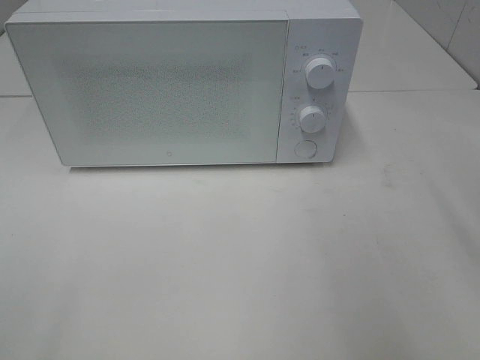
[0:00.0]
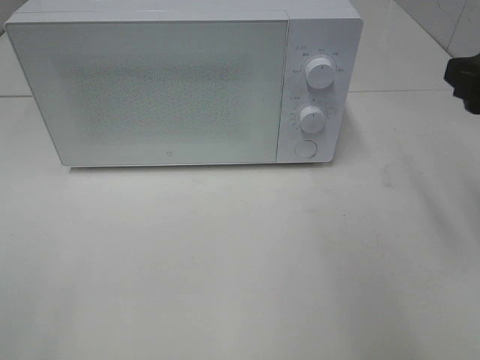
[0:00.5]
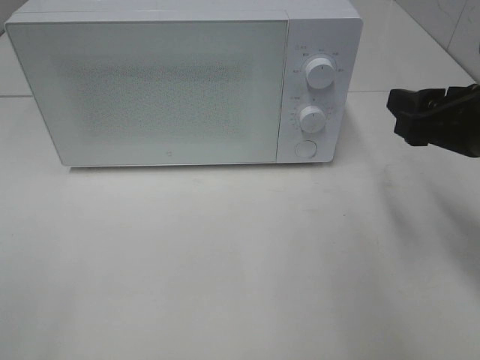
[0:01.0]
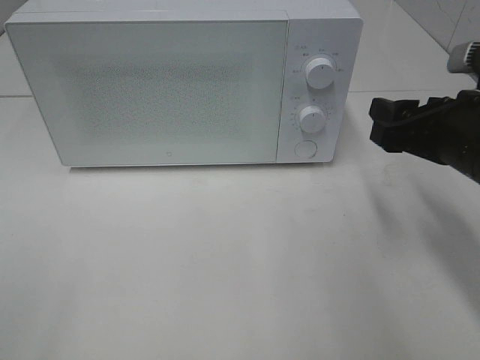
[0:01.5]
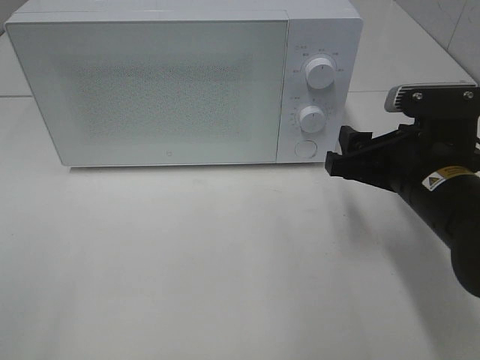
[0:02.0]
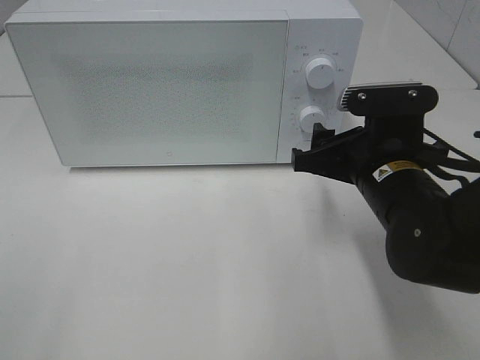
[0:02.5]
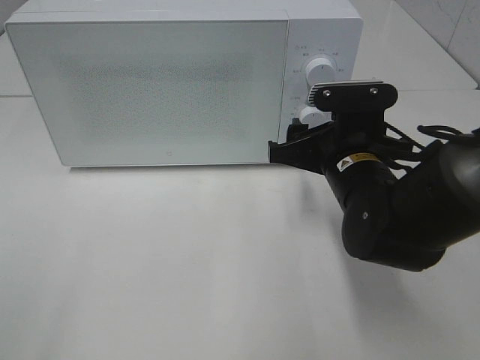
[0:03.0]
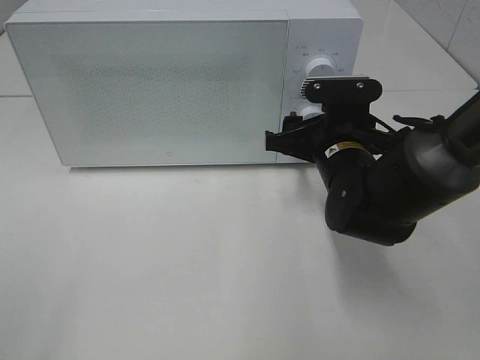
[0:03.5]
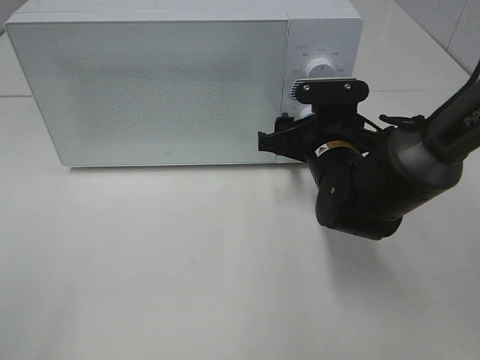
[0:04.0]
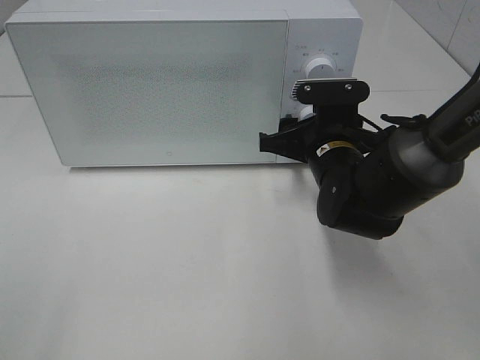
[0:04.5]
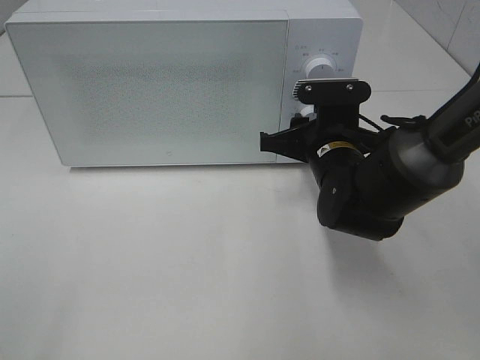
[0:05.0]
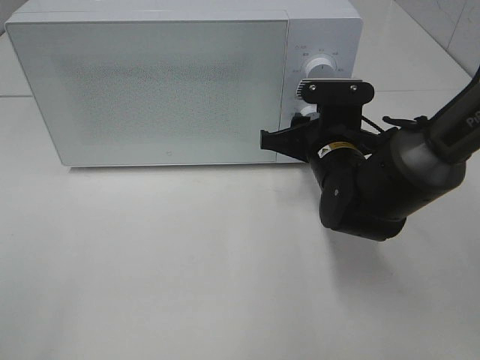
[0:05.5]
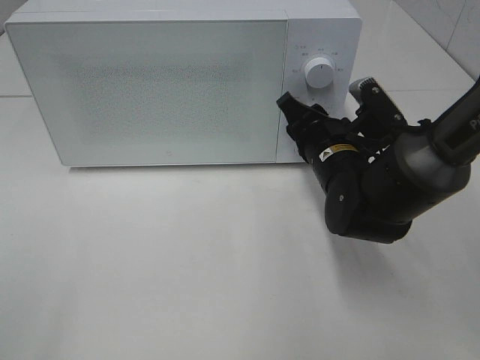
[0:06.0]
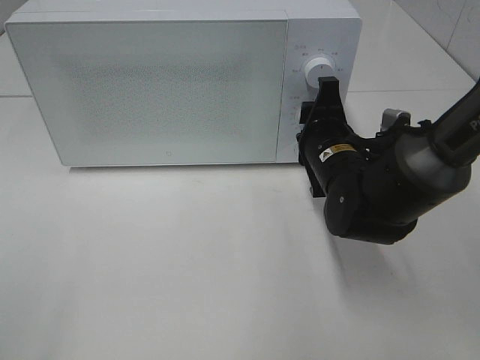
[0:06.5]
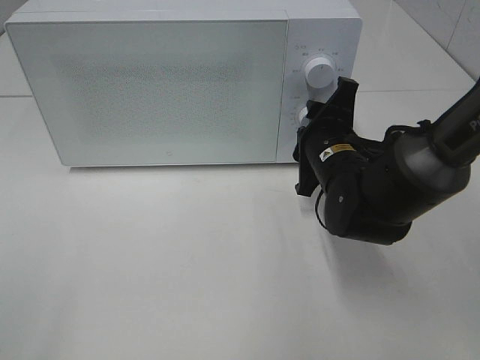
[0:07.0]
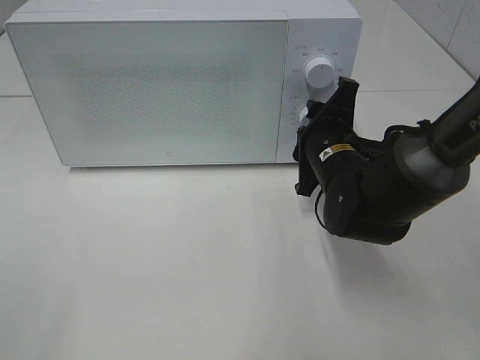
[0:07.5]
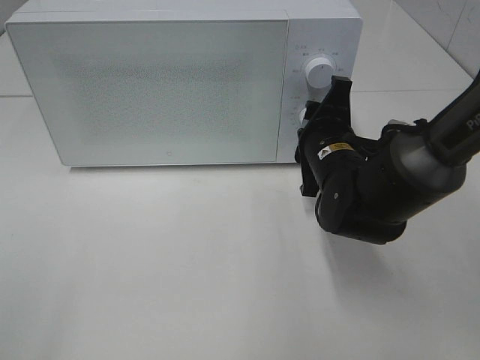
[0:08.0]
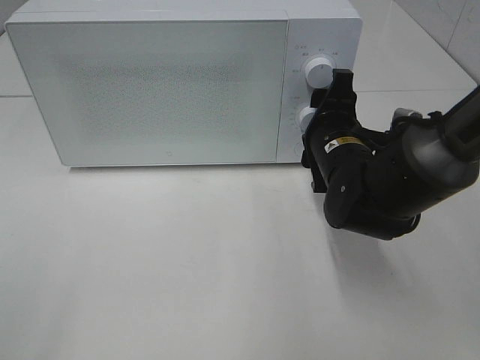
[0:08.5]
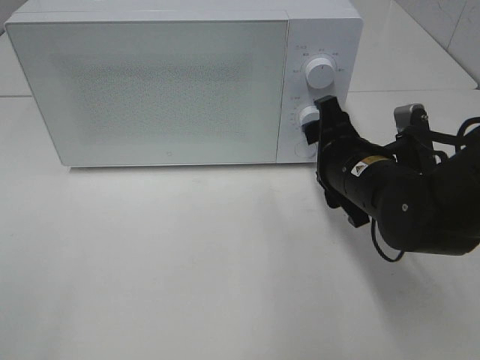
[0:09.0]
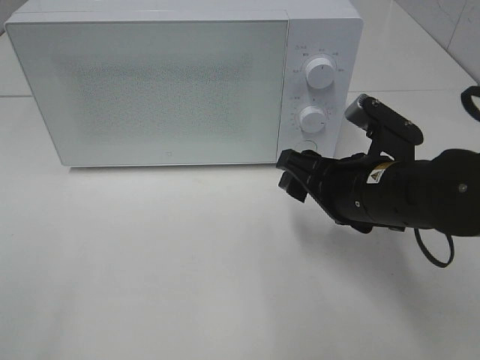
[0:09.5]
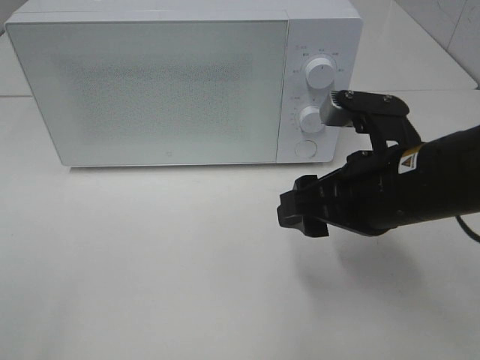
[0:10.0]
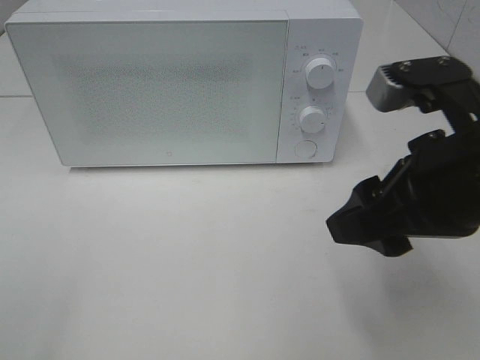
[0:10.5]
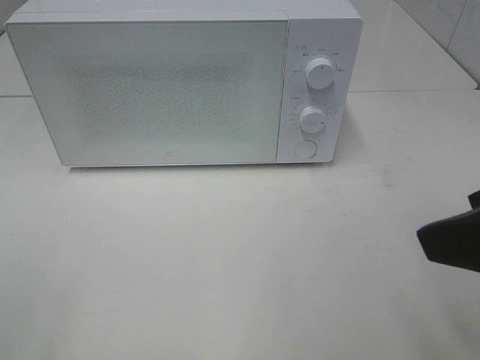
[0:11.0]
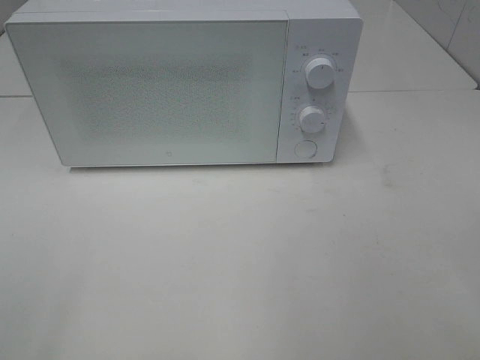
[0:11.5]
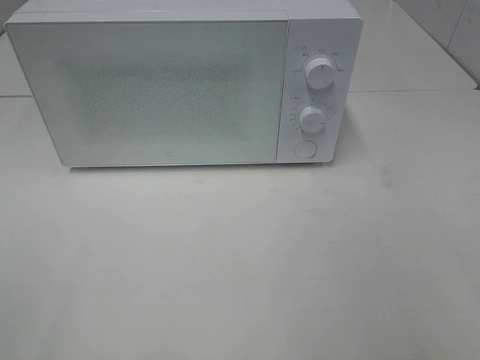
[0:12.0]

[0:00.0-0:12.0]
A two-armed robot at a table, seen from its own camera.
Task of the whole recording: Heat the burger.
Step, 0:00.0 to 0:08.0: Right hand: twist timer button.
0:00.0 to 0:02.0: The right gripper heads downward, to the left and forward, covering approximately 15 cm.
0:02.0 to 0:04.0: The right gripper is displaced forward and to the left by about 10 cm.
0:08.0 to 0:10.0: The right gripper is displaced backward and upward by roughly 15 cm.
0:10.0 to 0:12.0: The right gripper heads backward, to the right and upward, covering some 25 cm.

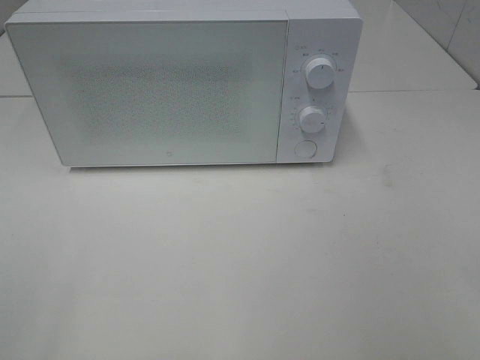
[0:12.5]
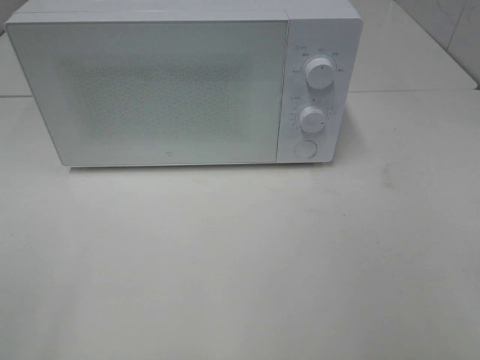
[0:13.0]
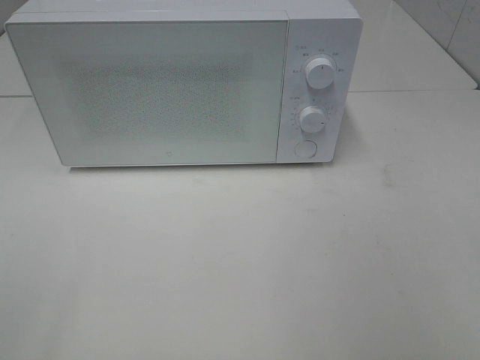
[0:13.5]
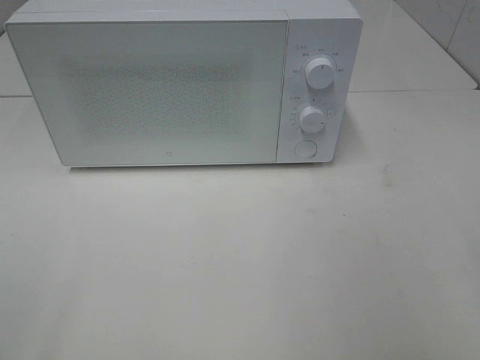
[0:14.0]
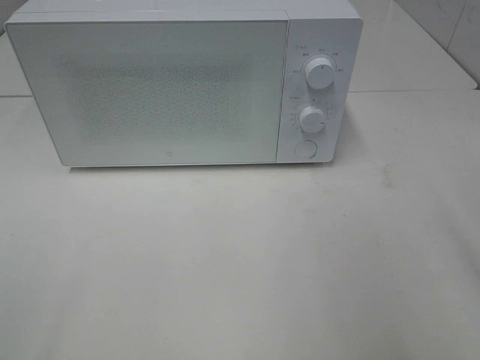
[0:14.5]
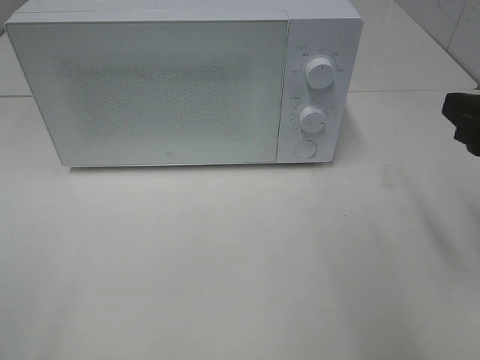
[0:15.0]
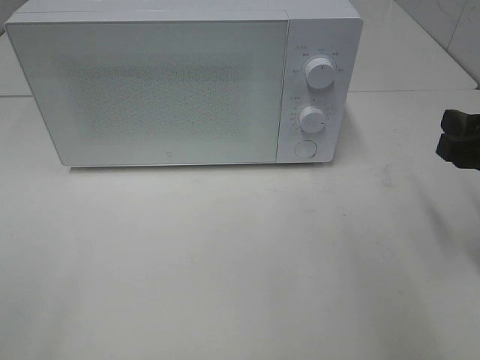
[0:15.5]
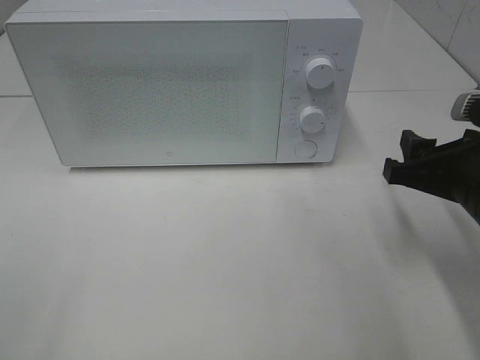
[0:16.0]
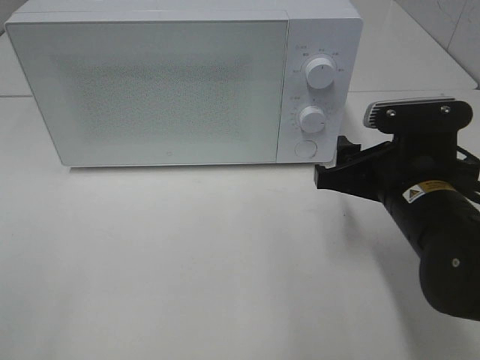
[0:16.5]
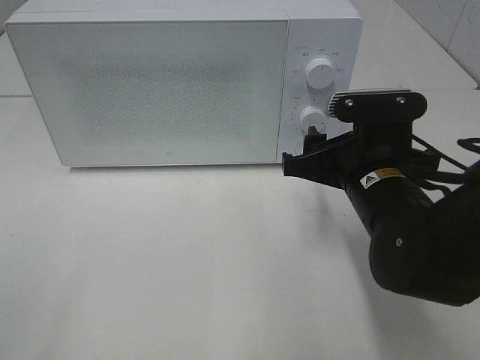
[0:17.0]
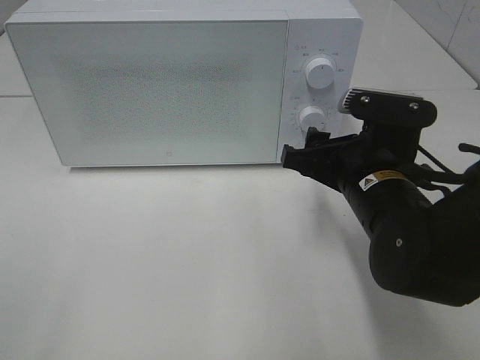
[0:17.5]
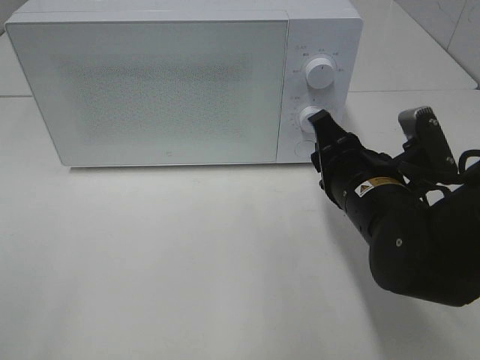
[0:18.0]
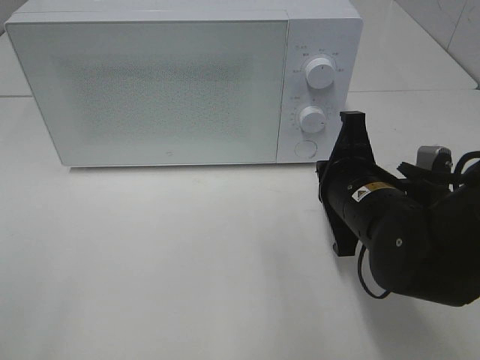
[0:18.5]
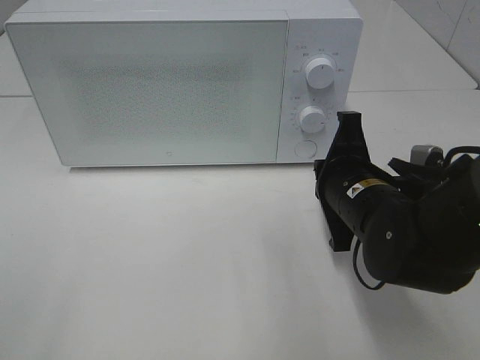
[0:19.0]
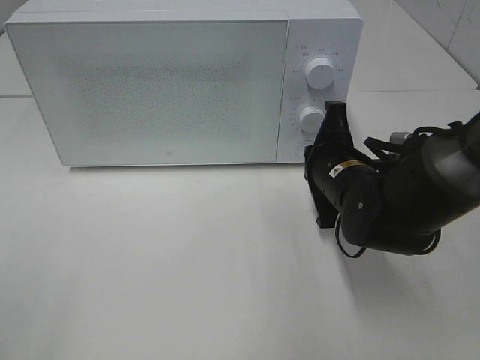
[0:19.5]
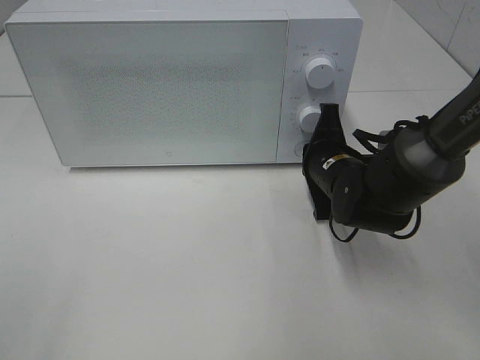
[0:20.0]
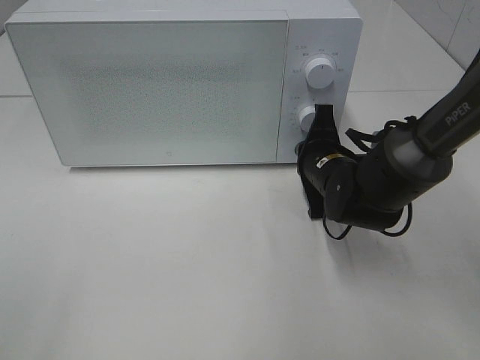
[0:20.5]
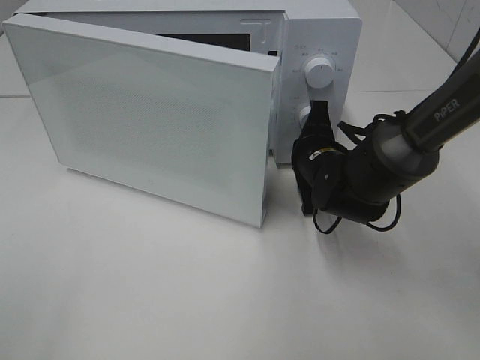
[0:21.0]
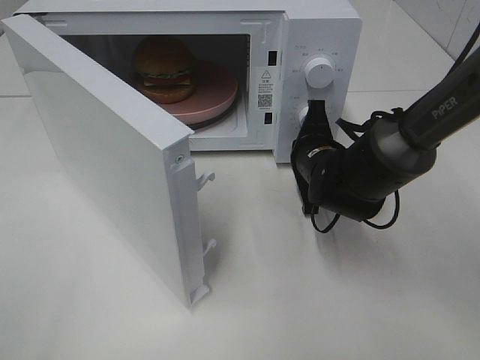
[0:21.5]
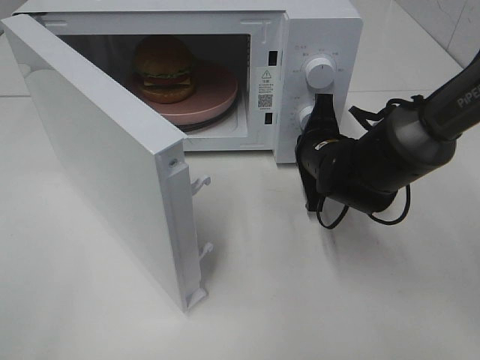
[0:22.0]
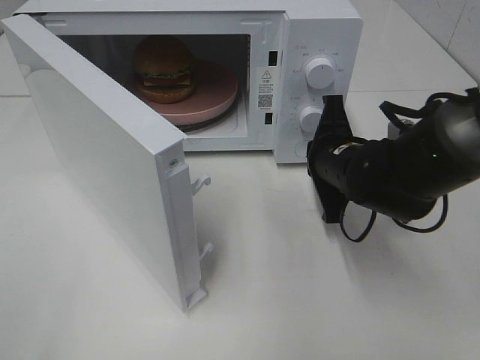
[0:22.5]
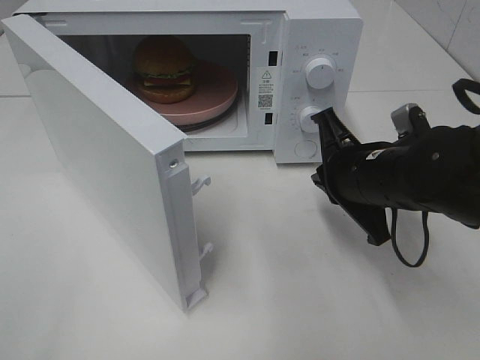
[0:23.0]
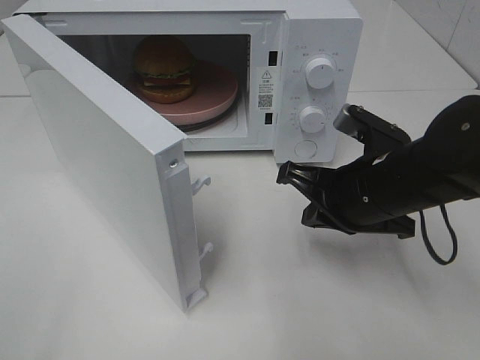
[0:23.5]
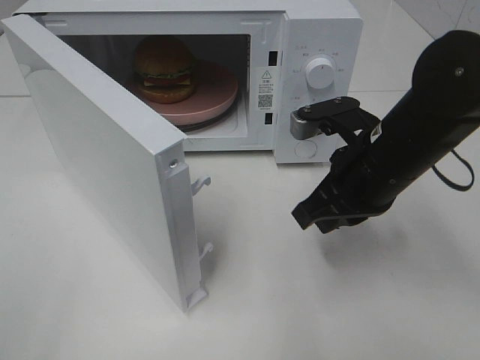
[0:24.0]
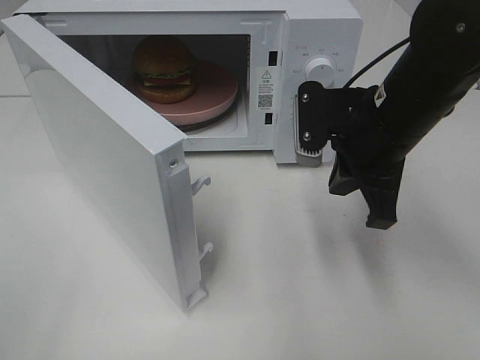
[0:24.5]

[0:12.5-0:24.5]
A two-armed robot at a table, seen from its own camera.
Task of the whole recording: Heat the burger.
Step, 0:12.5 to 0:22.0: Right hand: press the switch.
0:14.5 to 0:16.5: The right gripper shifts about 20 cm downward, to the left and forward.
0:16.5 to 0:18.5: The right gripper closes up.
0:18.5 to 0:20.5: The right gripper heads forward and downward, covering roughly 10 cm.
0:20.5 to 0:22.5: The right gripper shifts by some 5 cm.
0:22.5 to 0:24.5: The right gripper goes roughly 10 cm upward.

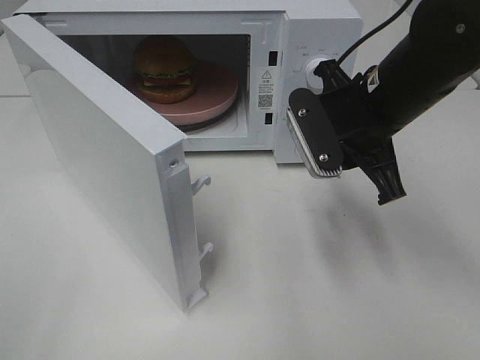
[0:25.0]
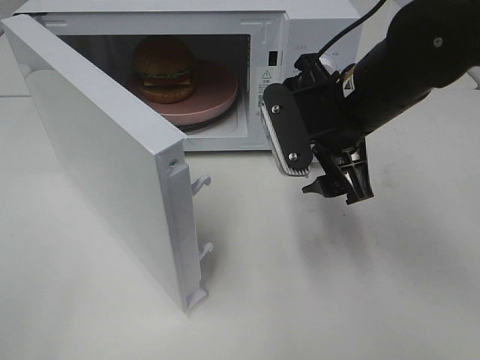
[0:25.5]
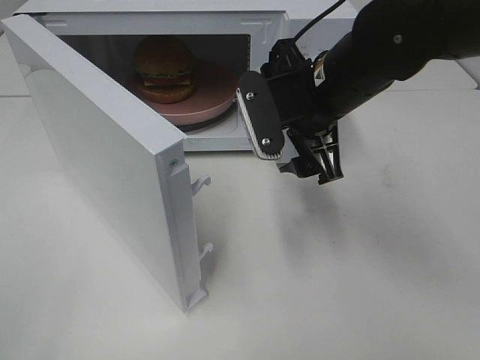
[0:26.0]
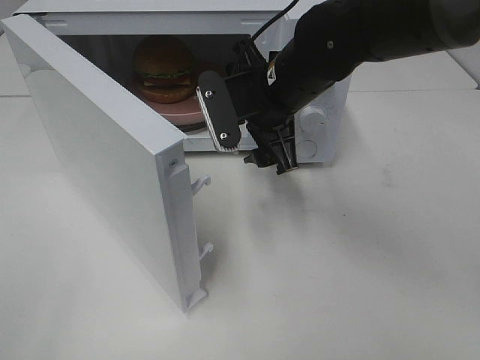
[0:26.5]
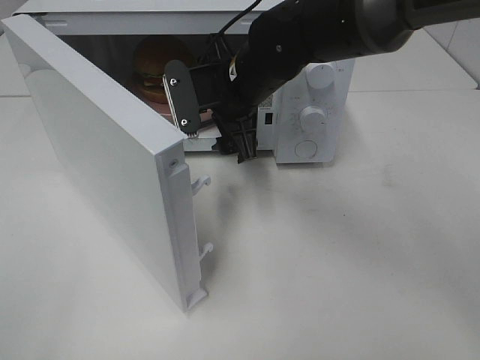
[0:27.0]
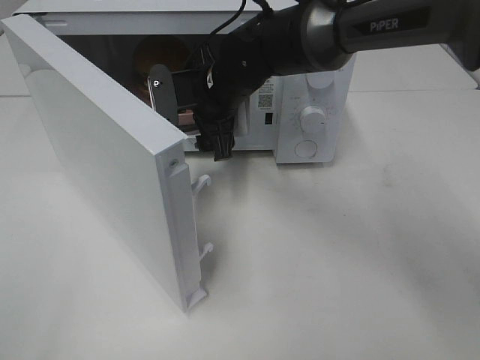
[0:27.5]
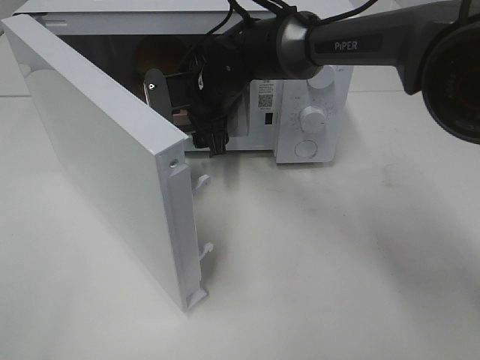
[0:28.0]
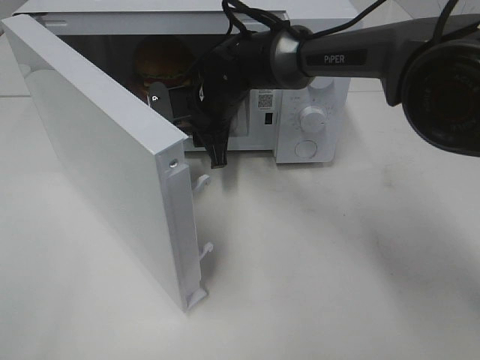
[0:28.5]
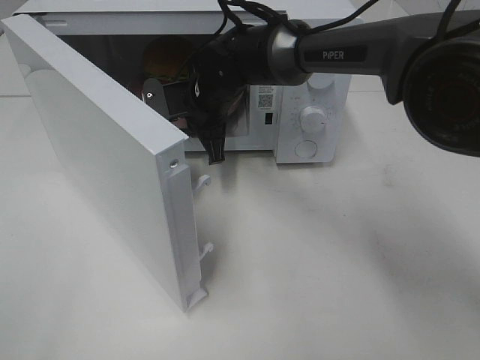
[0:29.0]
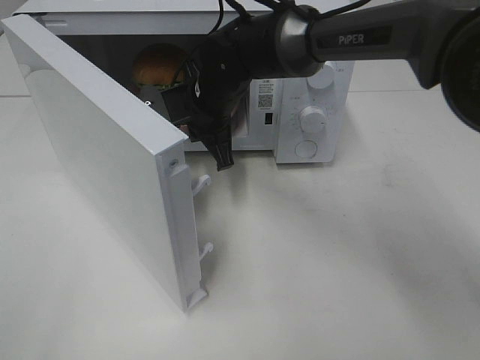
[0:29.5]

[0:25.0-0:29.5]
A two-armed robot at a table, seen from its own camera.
Task of the whole recording: Heat the burger.
Step, 0:25.0 to 0:28.5: Right hand: grab the plate with the hamburger.
0:25.0 to 0:27.0: The right gripper shifts roughly 15 cm to the left and forward, and opens.
0:27.0 to 0:29.5: The right gripper closes up.
